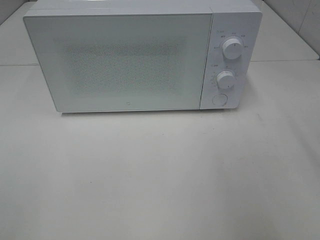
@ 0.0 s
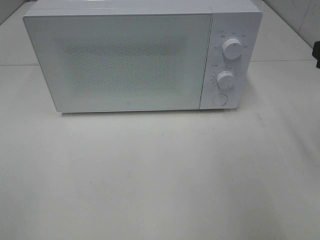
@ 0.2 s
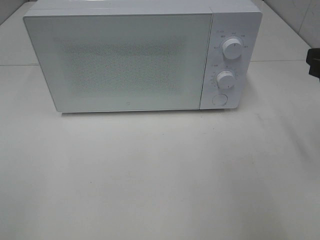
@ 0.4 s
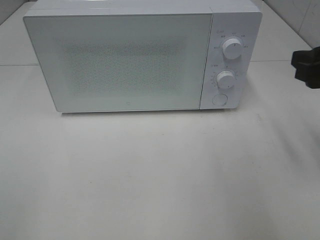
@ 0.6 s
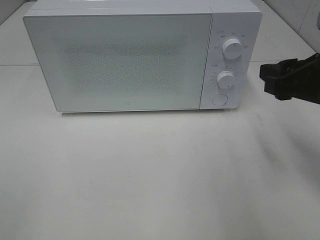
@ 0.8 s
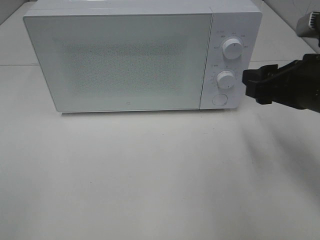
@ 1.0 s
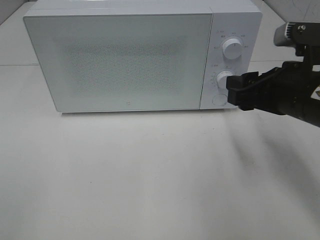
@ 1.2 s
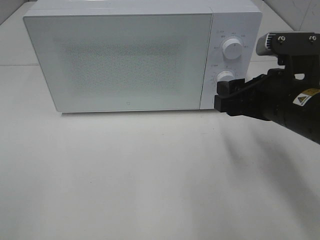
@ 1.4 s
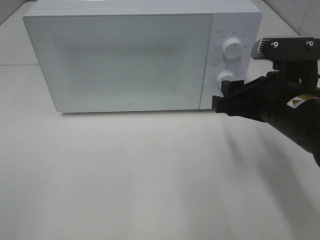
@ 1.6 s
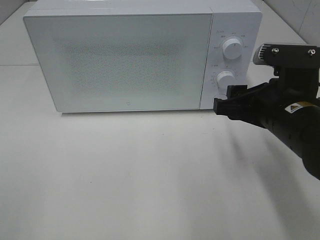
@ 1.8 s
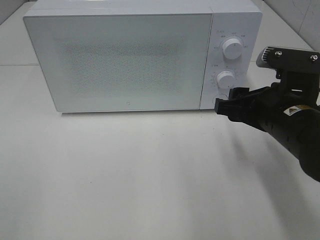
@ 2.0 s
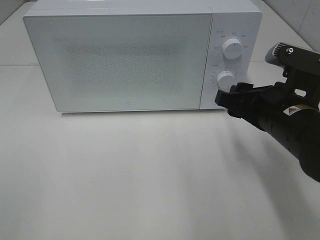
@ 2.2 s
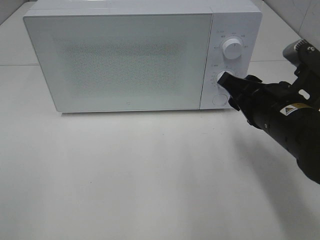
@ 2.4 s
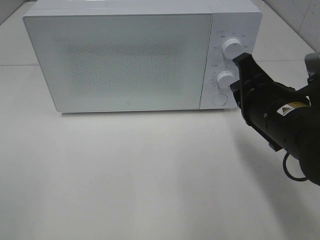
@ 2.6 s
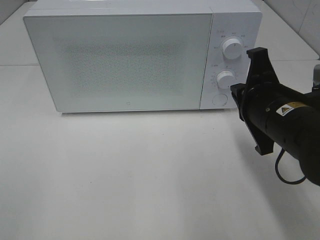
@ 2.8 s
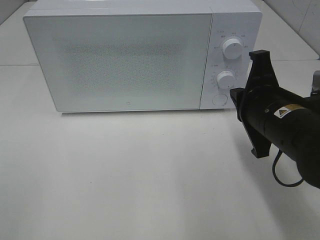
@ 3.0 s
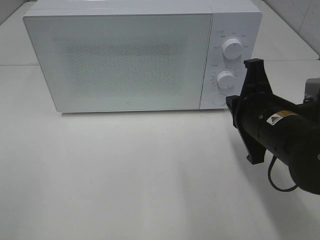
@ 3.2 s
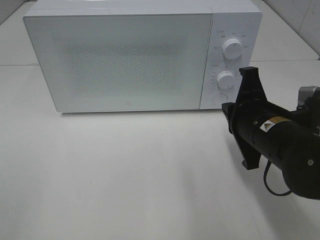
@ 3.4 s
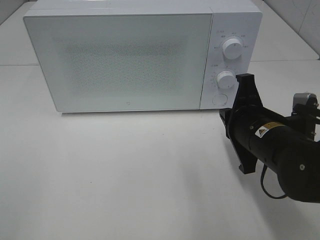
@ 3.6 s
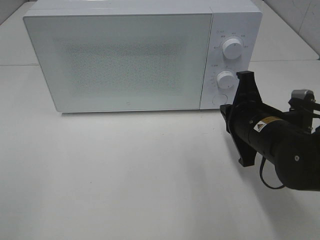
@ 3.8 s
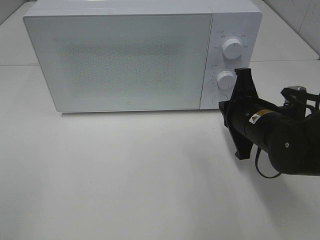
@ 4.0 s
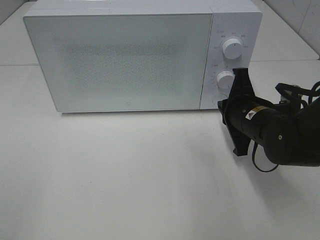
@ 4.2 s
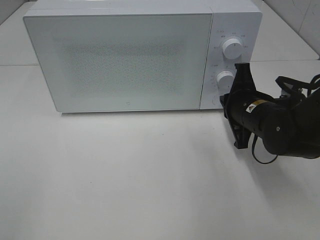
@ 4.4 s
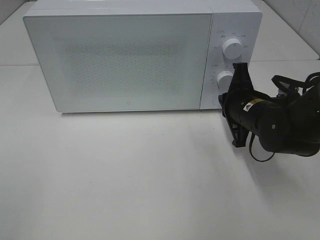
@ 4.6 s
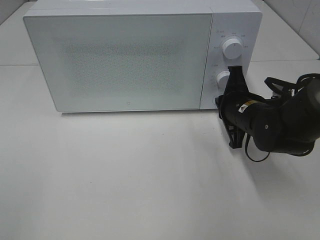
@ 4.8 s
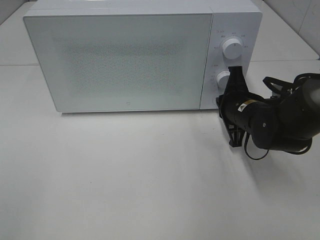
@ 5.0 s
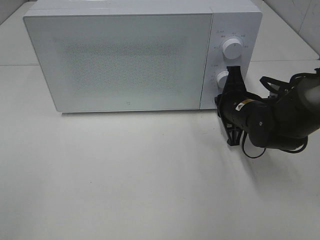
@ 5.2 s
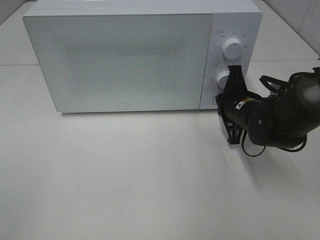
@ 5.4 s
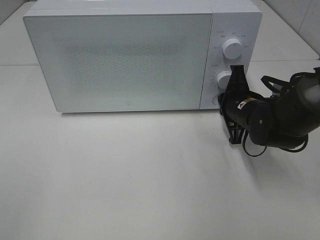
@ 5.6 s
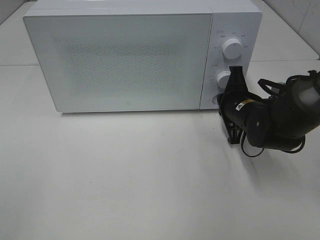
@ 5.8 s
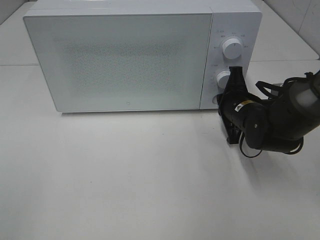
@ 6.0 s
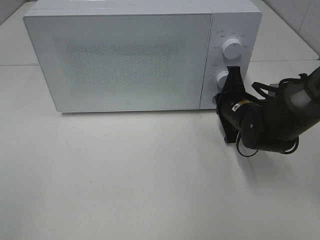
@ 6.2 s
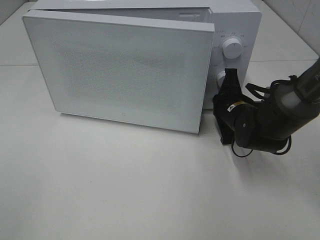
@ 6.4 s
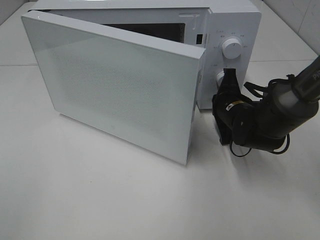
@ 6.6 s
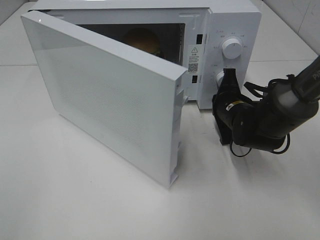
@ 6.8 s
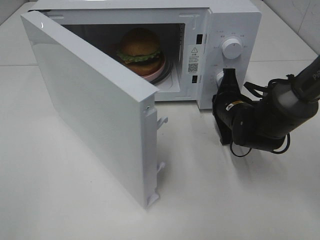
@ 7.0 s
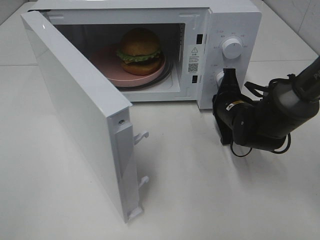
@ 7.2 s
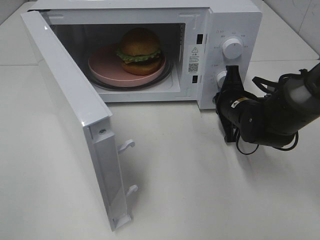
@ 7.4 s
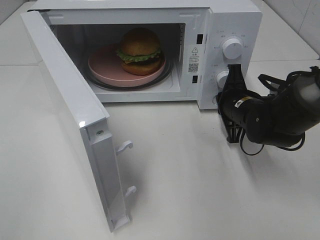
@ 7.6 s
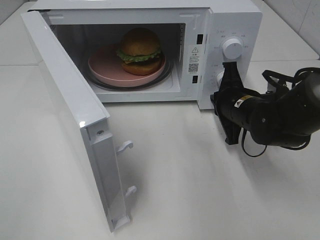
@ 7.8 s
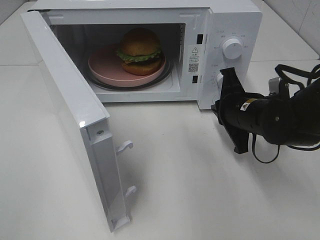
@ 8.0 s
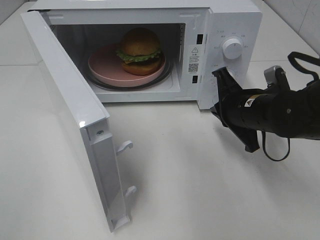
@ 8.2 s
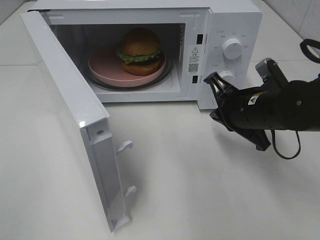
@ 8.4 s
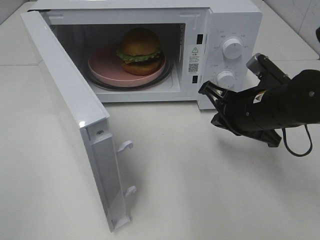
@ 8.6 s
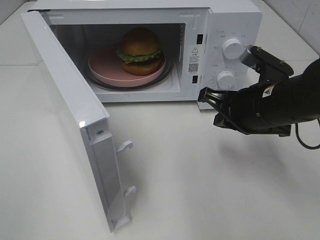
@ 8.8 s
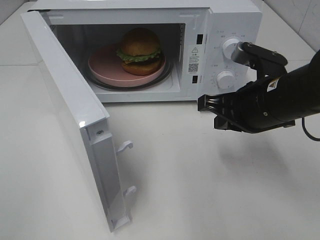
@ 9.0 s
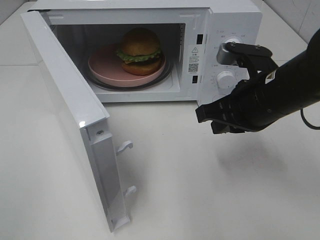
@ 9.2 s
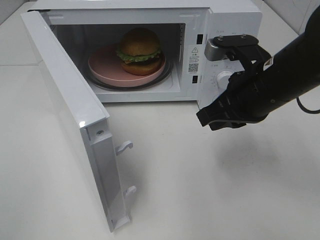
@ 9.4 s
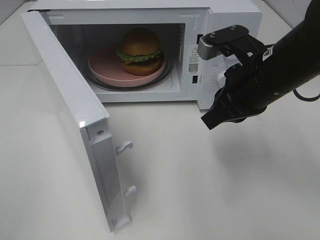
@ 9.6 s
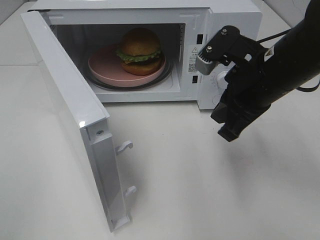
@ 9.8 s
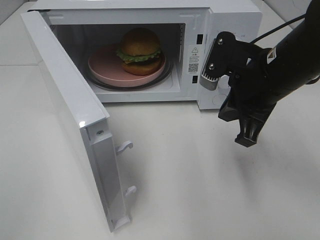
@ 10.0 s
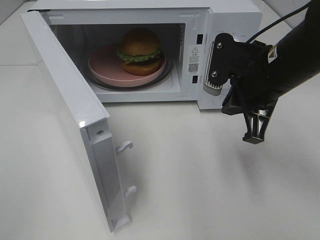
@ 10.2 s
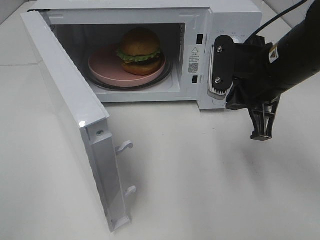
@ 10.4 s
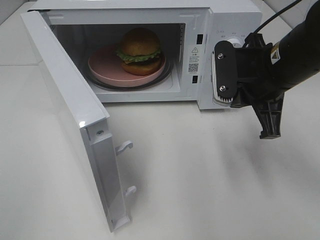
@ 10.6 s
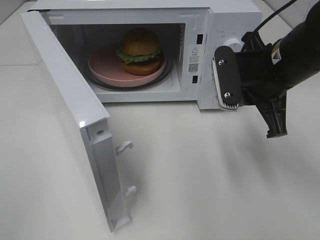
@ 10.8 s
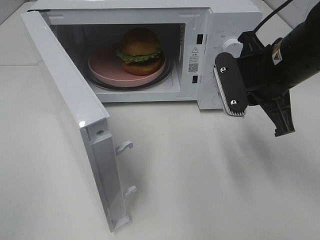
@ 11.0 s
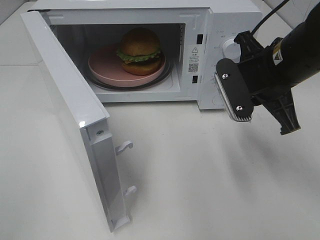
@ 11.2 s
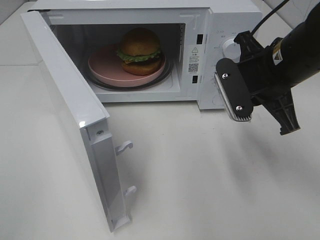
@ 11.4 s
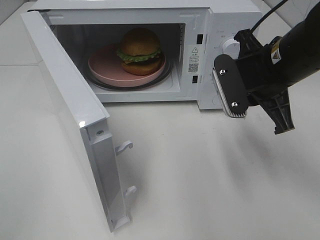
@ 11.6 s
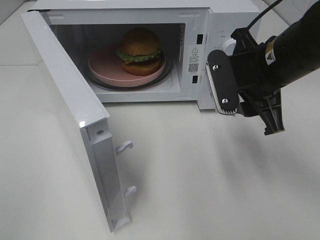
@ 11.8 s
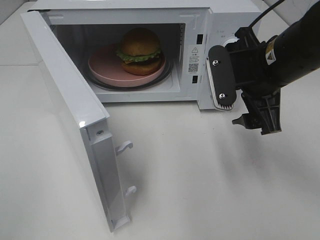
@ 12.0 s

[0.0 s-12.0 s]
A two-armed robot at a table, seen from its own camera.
Task of the whole recording: Heat the burger.
Step, 0.0 to 7.6 s: Right hand: press the switch.
0.0 to 1.6 s: The right gripper heads to the left and downward, covering some 15 cm.
1.6 to 3.0 s: The right gripper closes its fingers.
3.0 to 4.4 s: The right gripper heads forward and downward, covering approximately 10 cm.
4.4 to 6.0 s: The grippers make only small movements.
7.6 to 9.0 s: The right gripper goes approximately 15 cm upward and backward.
10.4 to 12.0 s: The right gripper opens up.

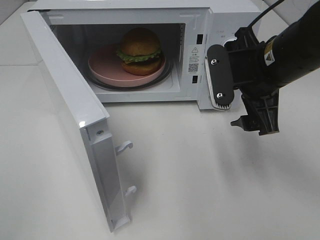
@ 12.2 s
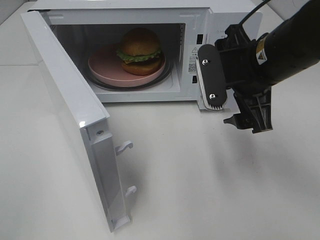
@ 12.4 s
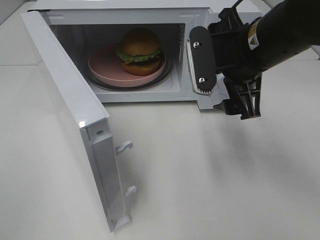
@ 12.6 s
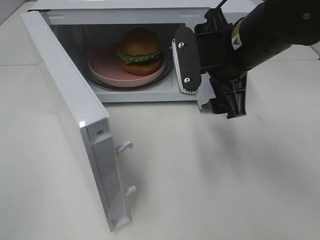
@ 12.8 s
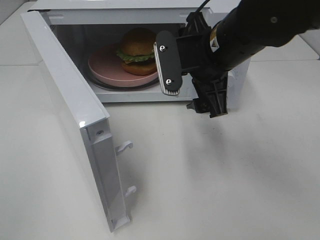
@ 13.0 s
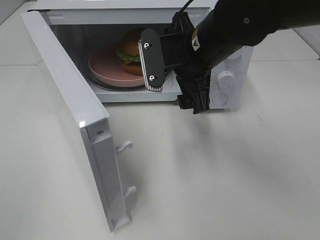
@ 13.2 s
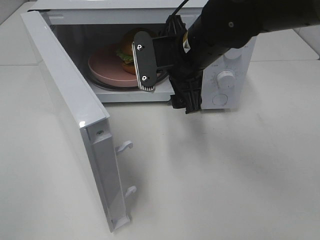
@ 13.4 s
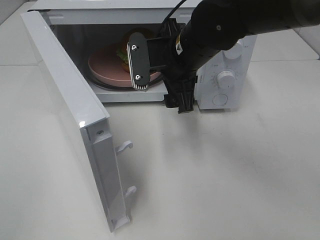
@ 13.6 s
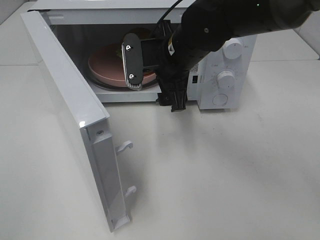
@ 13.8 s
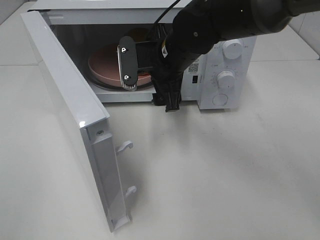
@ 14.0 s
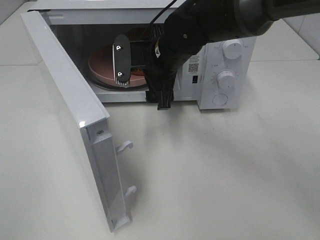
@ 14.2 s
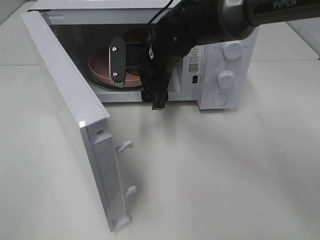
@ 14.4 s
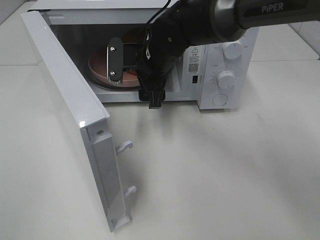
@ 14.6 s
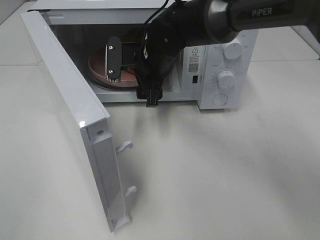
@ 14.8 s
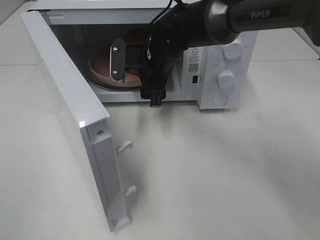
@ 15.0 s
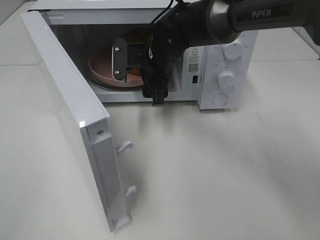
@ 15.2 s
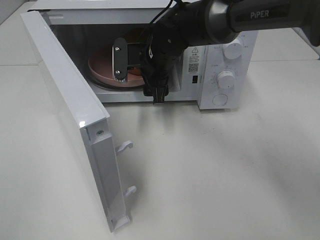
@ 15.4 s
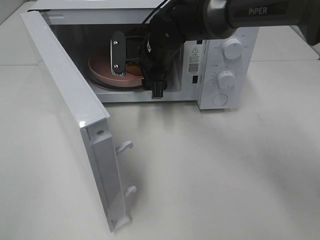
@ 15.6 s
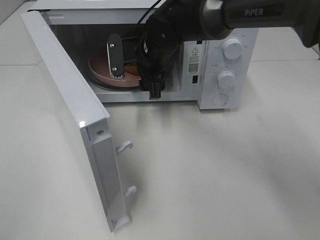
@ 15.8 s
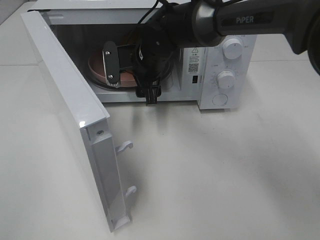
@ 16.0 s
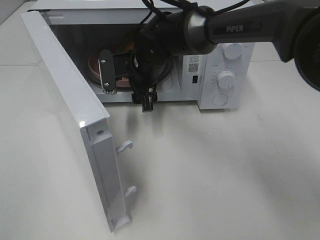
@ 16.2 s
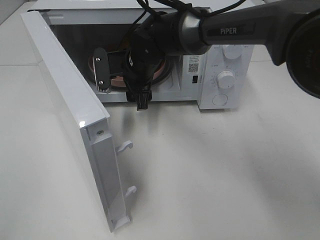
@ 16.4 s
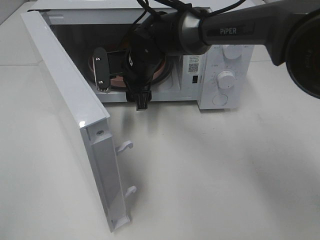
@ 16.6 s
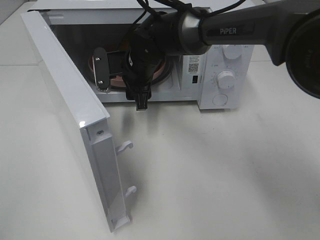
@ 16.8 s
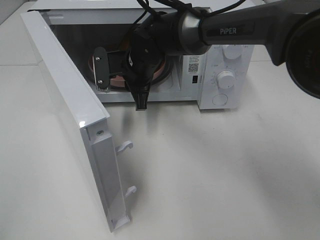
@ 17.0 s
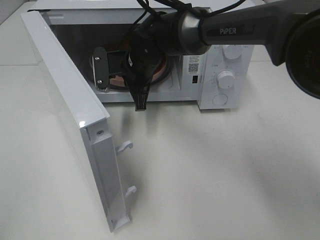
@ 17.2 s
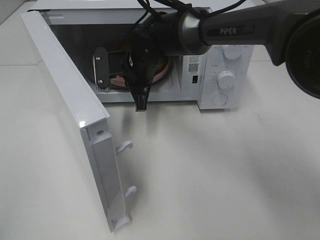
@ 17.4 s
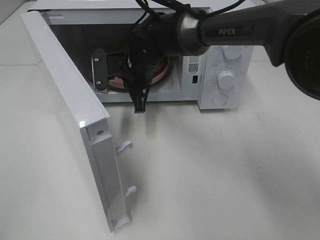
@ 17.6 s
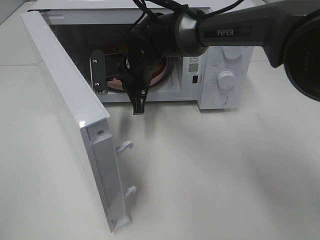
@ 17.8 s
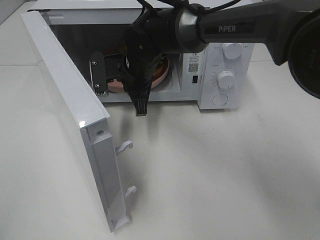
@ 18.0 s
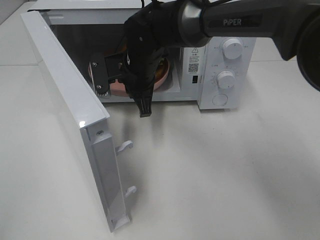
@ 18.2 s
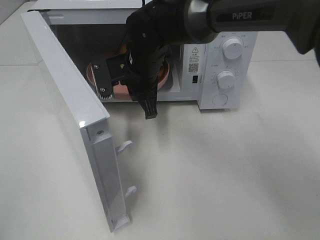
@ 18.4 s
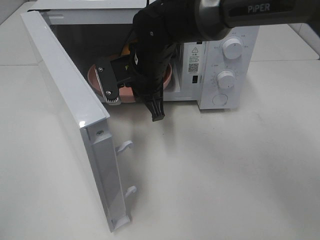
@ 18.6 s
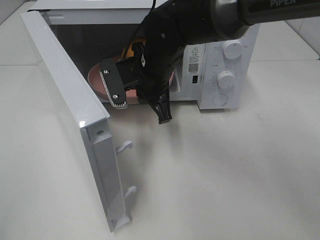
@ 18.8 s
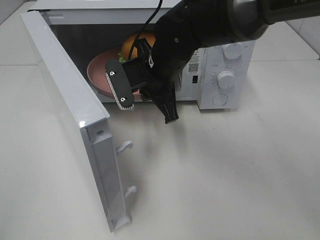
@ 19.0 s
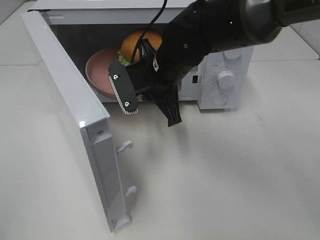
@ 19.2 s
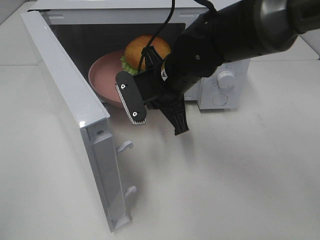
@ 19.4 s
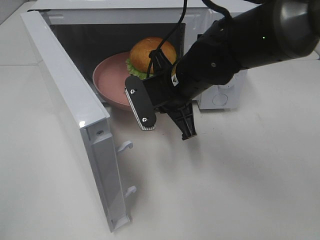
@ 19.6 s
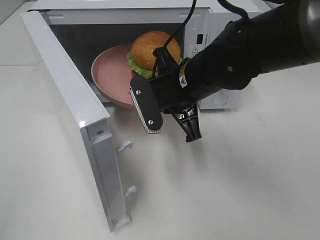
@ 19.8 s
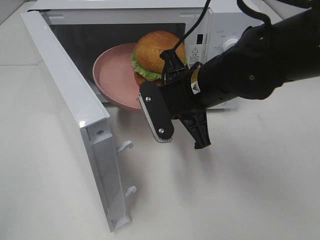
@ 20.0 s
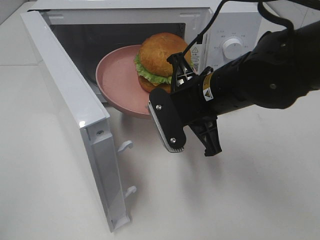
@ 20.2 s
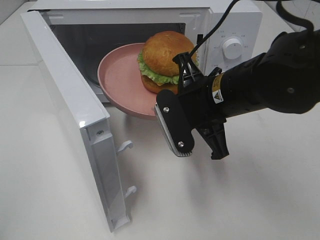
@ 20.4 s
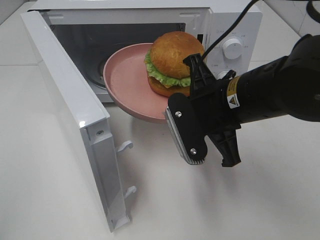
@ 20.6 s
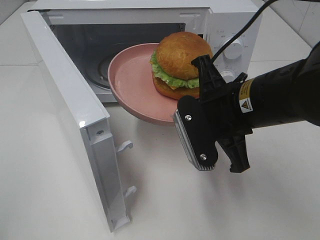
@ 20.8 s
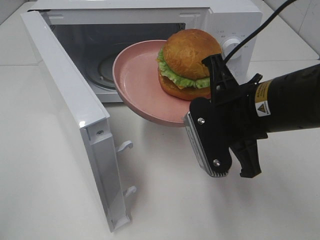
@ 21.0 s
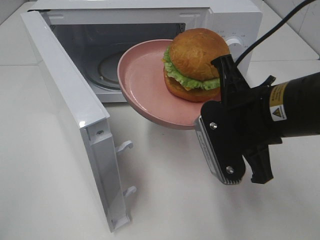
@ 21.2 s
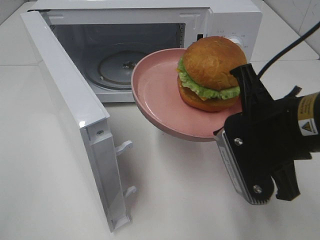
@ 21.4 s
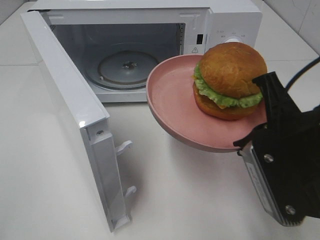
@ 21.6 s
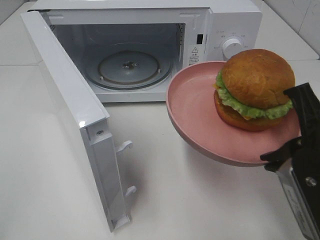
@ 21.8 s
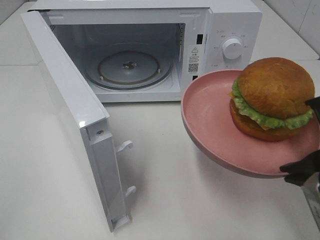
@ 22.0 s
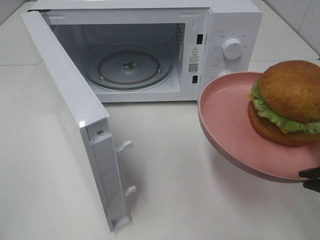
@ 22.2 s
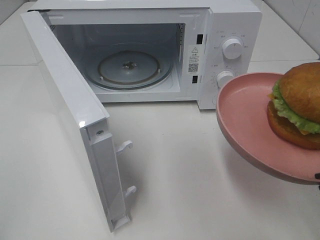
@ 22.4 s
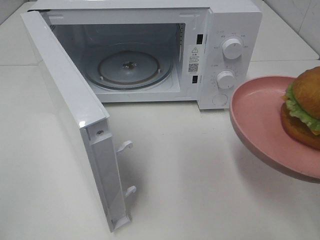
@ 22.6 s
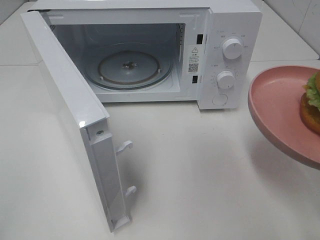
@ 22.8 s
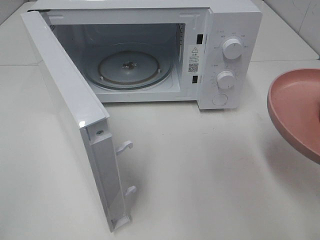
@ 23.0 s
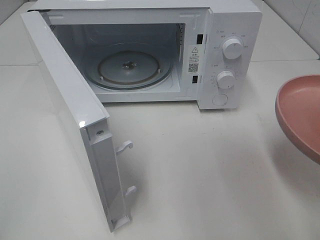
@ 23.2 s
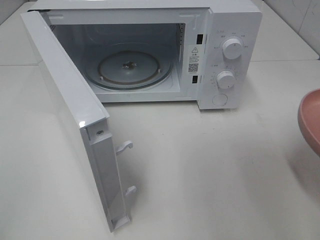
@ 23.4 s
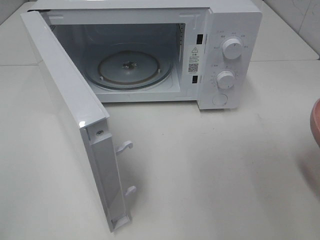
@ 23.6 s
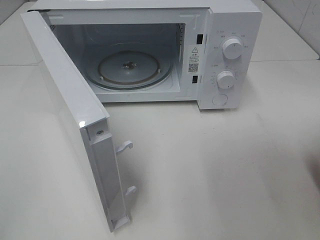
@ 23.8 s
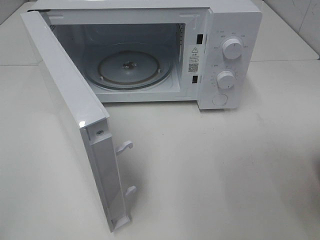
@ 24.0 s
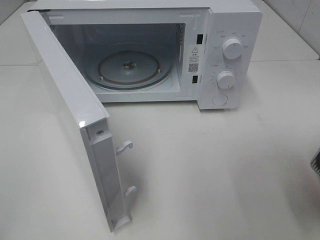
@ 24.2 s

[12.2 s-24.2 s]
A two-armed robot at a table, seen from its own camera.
Task of the whole recording: Heat the burger.
Step, 12.2 to 17.2 s: Right hand: grab the plate with the hamburger.
12.2 to 13.8 s: The right gripper heads to the left and forward, covering roughly 15 cm.
13.8 to 15.2 s: The right gripper goes some 5 cm forward.
15.2 to 16.6 s: The grippers stay close to where they were, moving slightly.
16.6 to 18.2 s: The right gripper closes up.
18.2 to 19.8 s: The right gripper goes some 10 cm backward and to the right.
19.8 to 21.2 s: The right gripper shifts approximately 15 cm backward and to the right.
21.2 to 22.6 s: The right gripper moves to the right and backward, about 15 cm.
